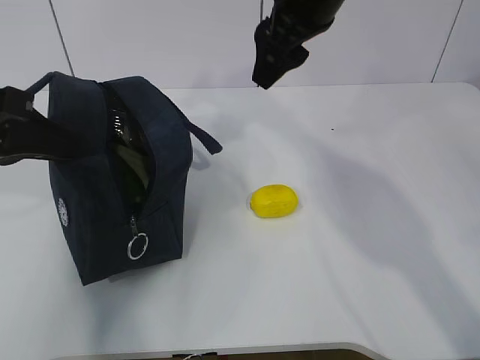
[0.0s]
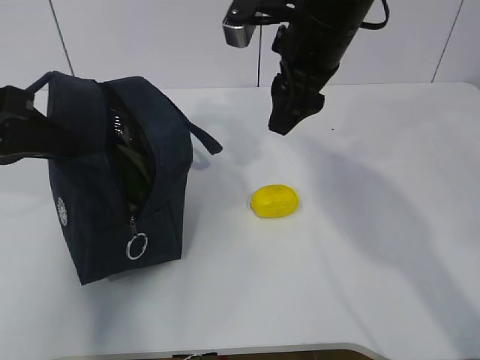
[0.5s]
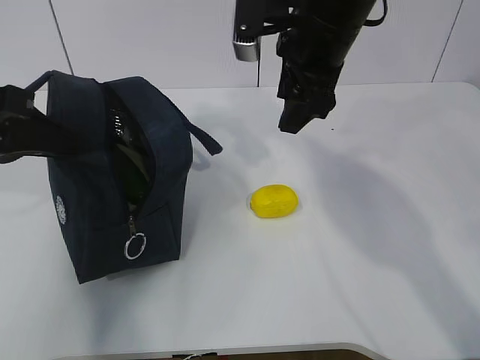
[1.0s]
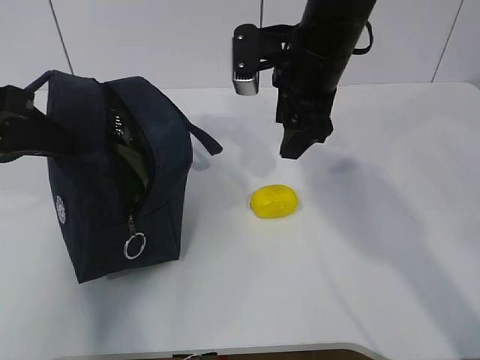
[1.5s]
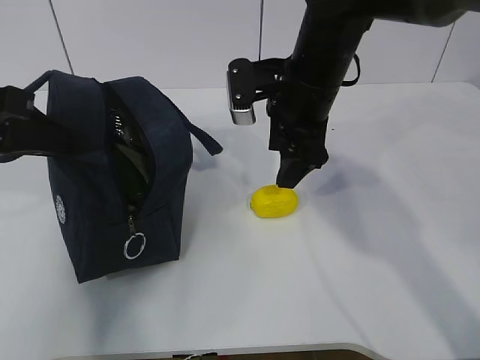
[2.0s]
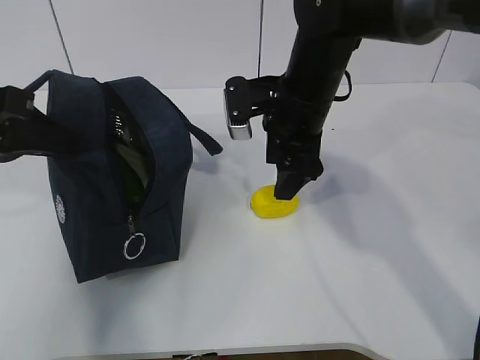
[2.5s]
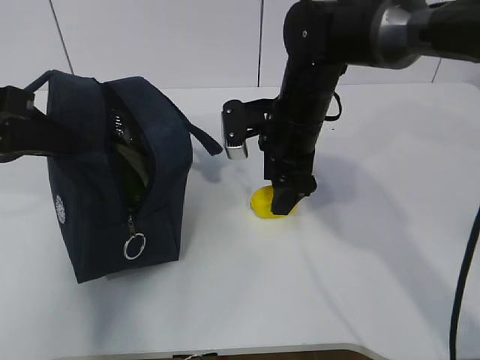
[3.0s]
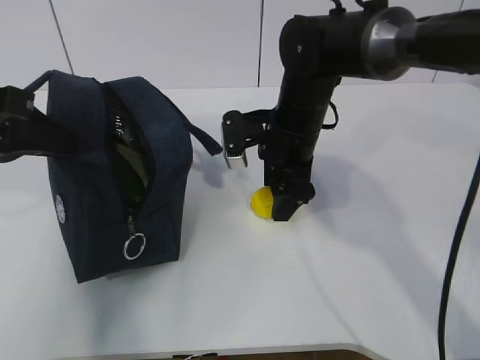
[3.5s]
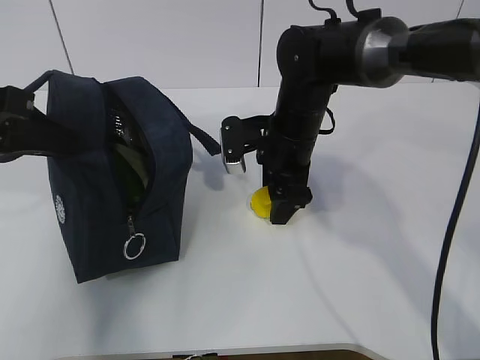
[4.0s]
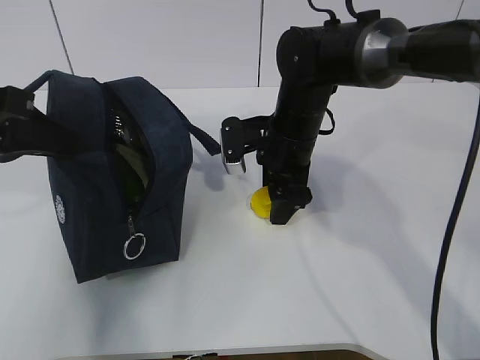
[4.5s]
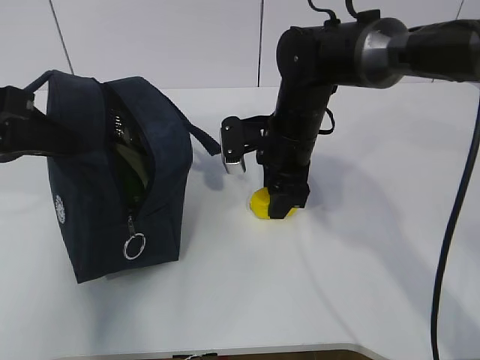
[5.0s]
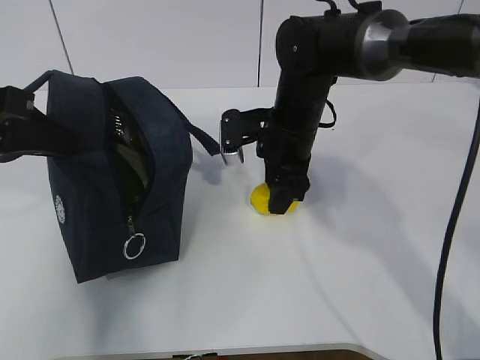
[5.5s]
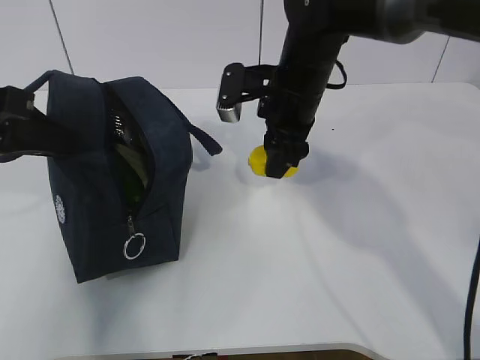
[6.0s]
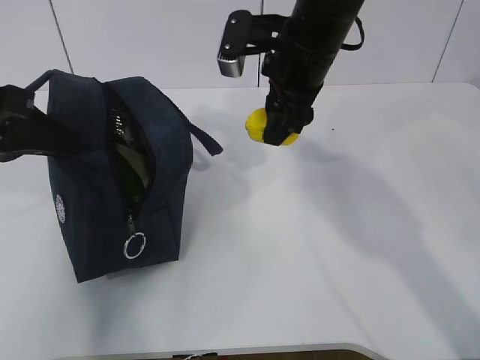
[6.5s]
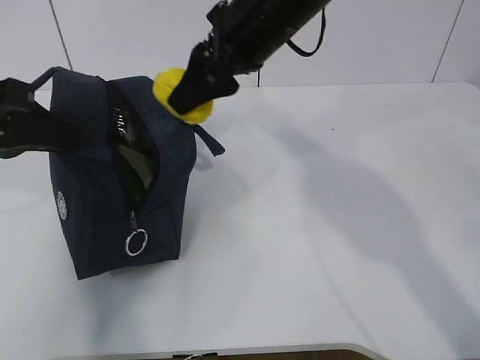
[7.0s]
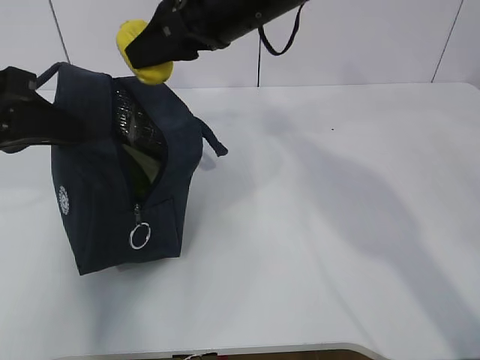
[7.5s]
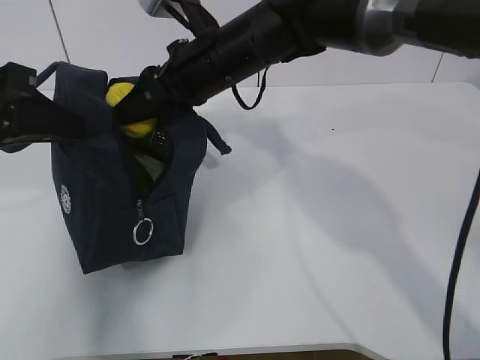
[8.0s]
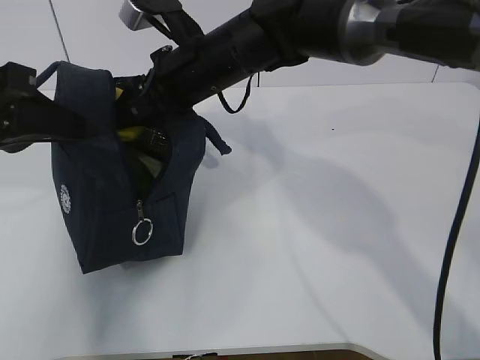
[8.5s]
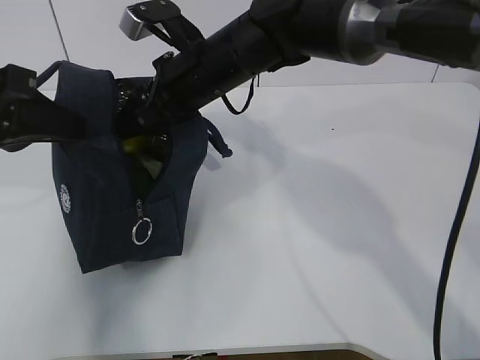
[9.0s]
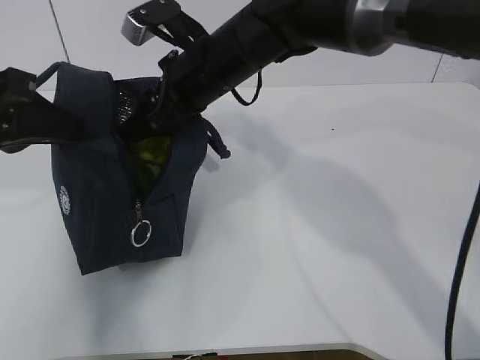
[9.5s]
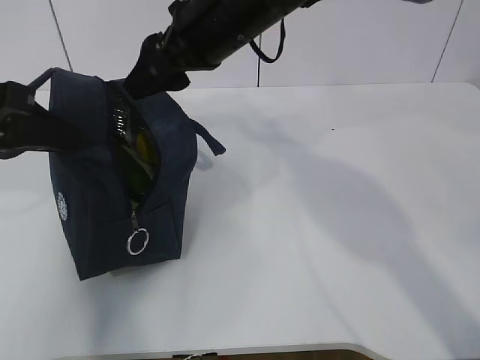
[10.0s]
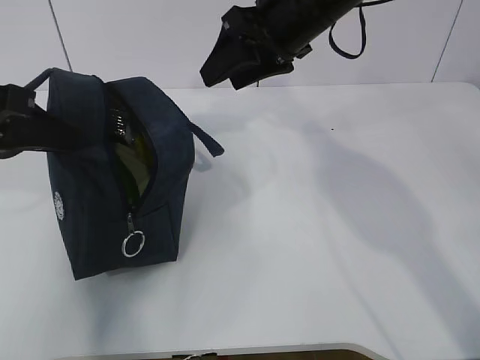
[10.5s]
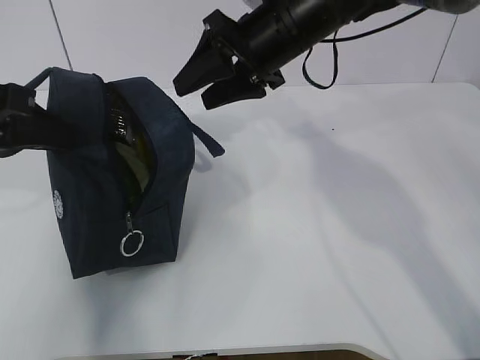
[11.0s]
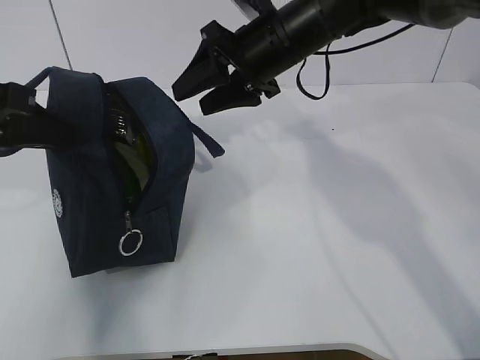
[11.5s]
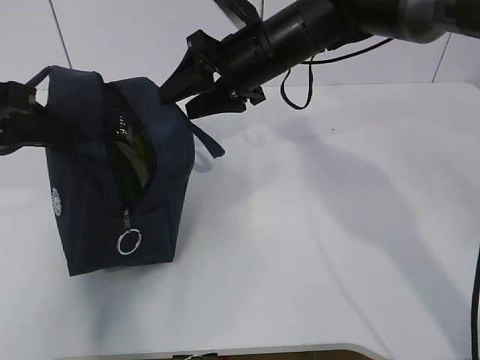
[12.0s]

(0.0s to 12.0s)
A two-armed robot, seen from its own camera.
Step, 3.5s - 6.0s: Grab the lunch bag with your right hand.
0.0s - 2.0s: The right gripper heads downward, covering some 10 cm.
2.0s - 4.0s: The right gripper travels downward by about 10 cm.
4.0s - 6.0s: The right gripper heads upward, covering about 5 cm.
6.0s - 8.0s: The right gripper travels to the left by roughly 10 cm.
8.0s - 10.0s: The right gripper changes place by about 5 cm.
10.0s - 12.0s: The right gripper moves about 10 cm.

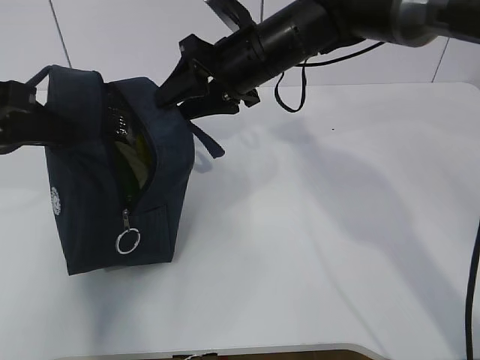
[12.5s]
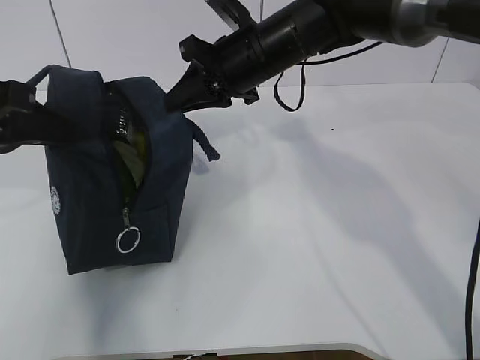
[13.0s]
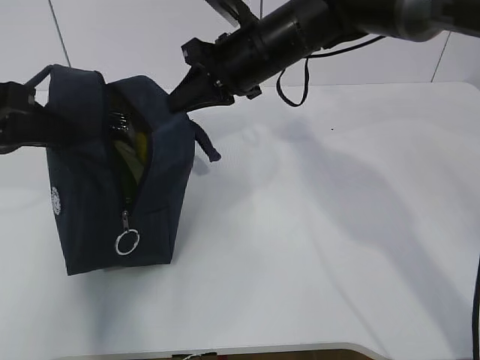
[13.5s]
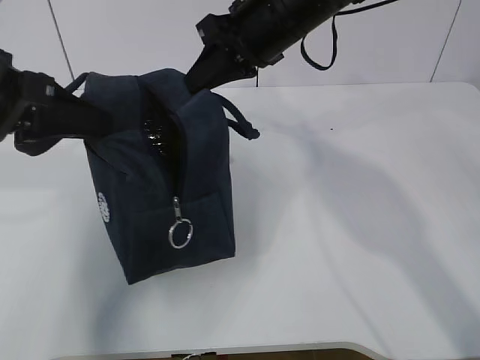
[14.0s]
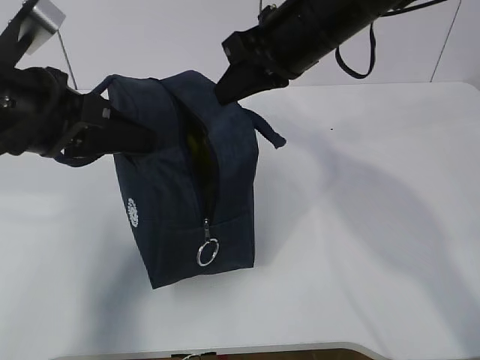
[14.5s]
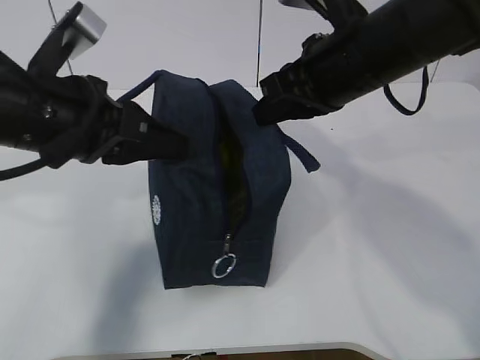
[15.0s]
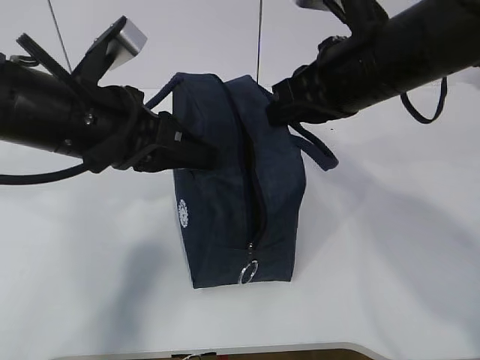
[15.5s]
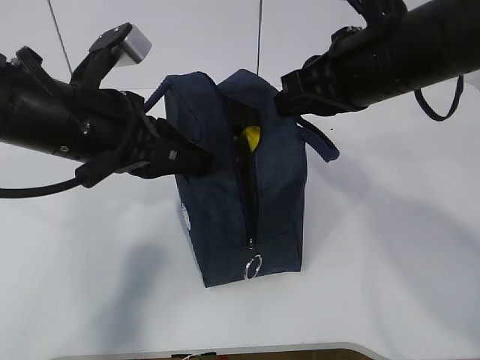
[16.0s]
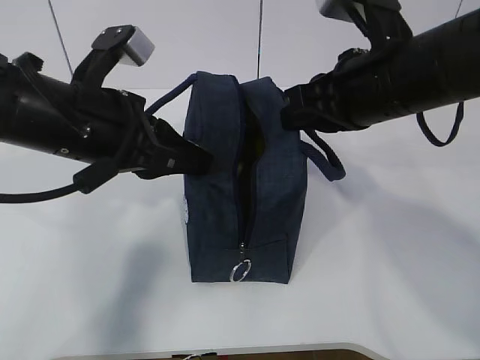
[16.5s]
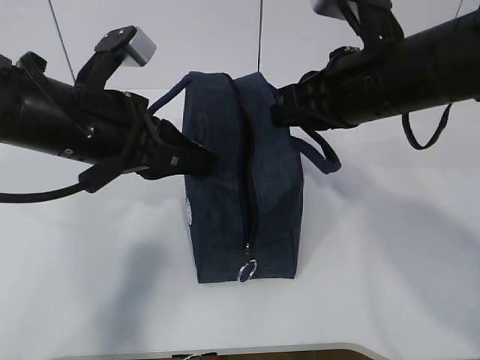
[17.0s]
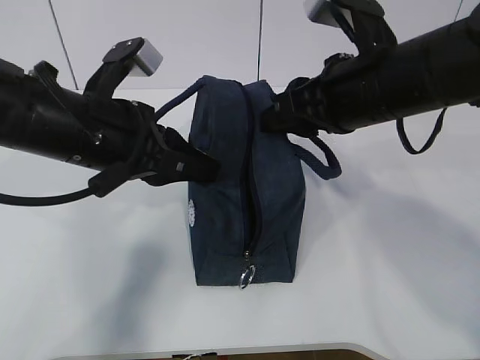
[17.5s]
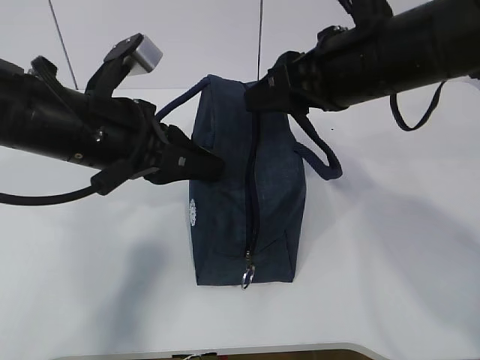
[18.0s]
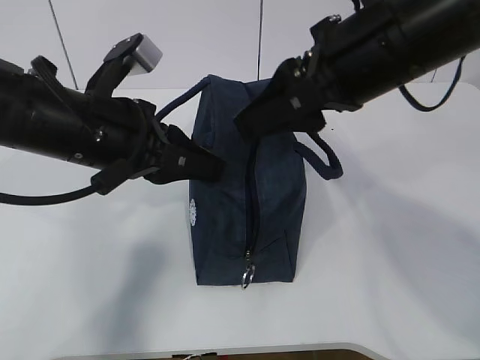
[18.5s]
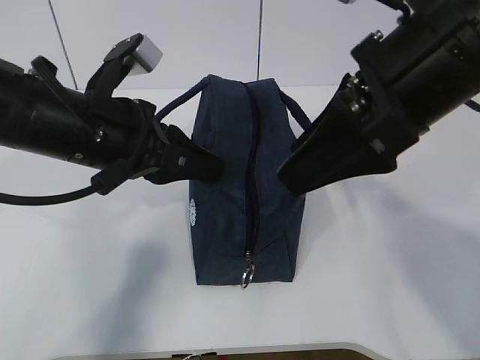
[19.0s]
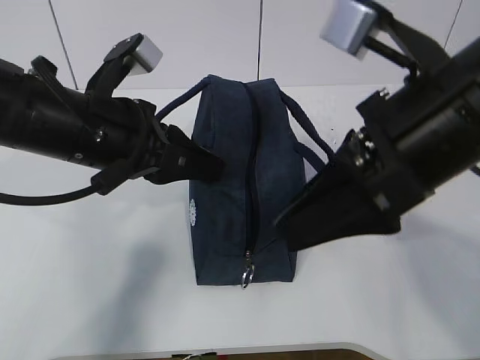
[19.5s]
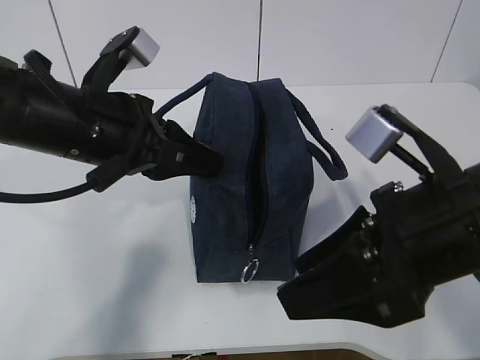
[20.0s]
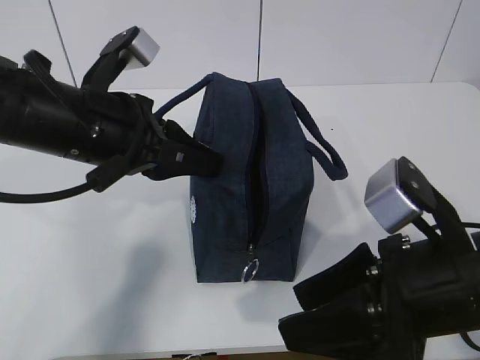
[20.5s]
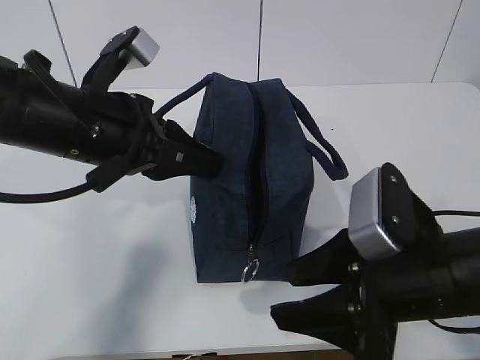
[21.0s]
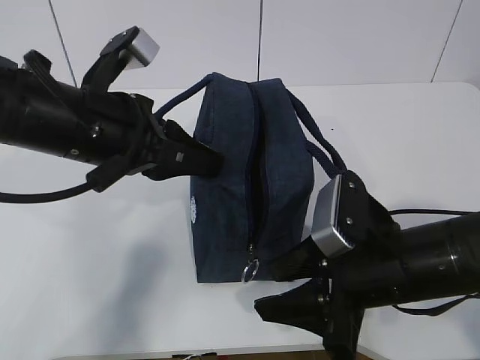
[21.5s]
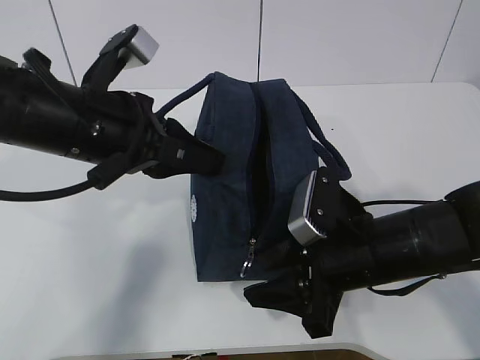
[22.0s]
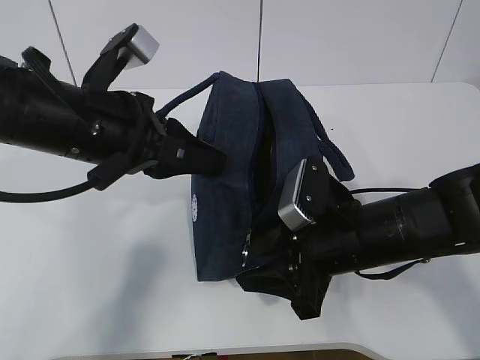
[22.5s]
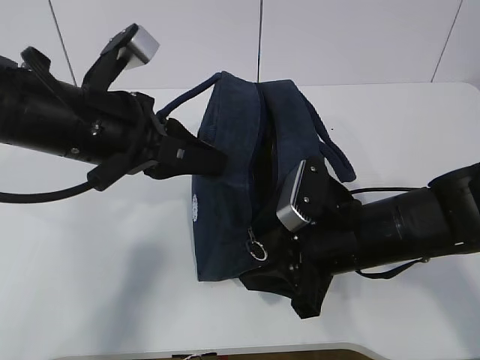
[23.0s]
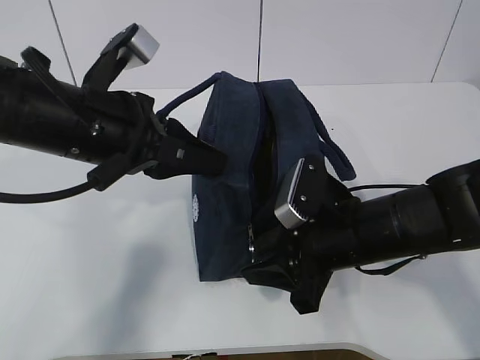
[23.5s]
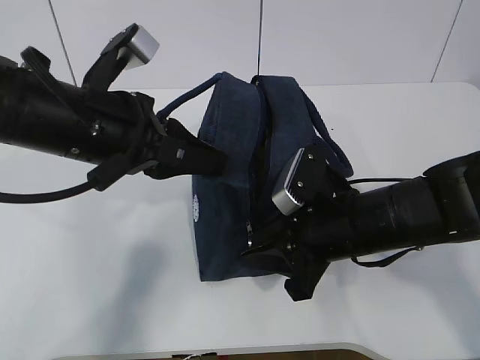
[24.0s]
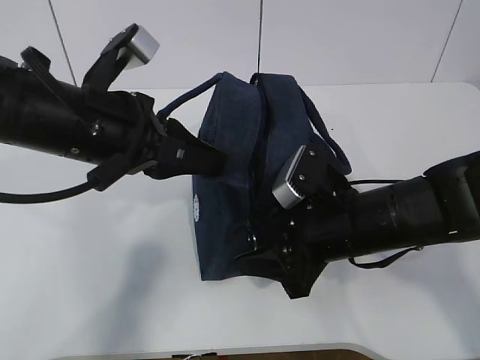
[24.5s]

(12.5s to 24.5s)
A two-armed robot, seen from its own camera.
Step, 12.5s - 23.5s: Grab the lunch bag with your left hand.
12.5s - 14.5s: The right gripper heads backward and upward, covering about 5 cm, and closes up; the left gripper heads to the right, covering roughly 5 cm.
14.5s - 16.5s: The right gripper travels backward and to the right by about 10 cm. The left gripper shifts about 5 cm to the right.
16.5s - 18.5s: The right gripper opens.
18.5s - 20.5s: The right gripper is displaced backward and downward by roughly 15 cm.
20.5s - 22.5s: The right gripper goes approximately 10 cm forward and downward.
22.5s - 24.5s: The grippers make only small movements.

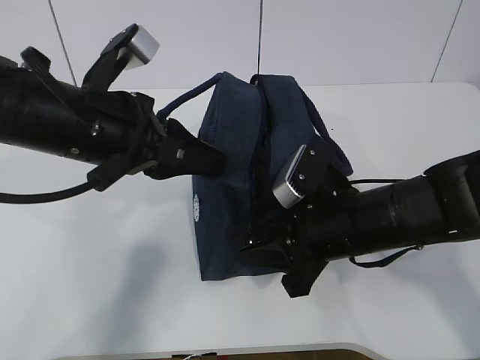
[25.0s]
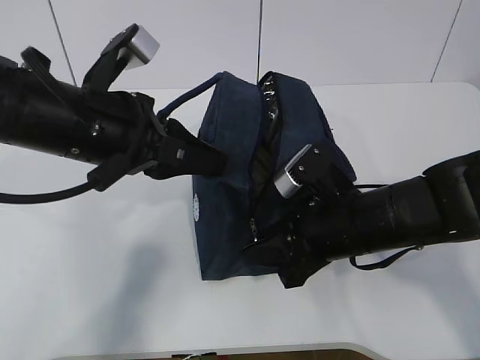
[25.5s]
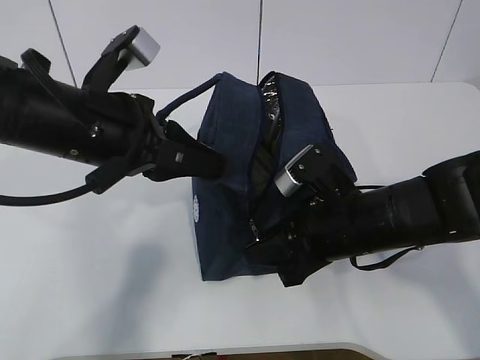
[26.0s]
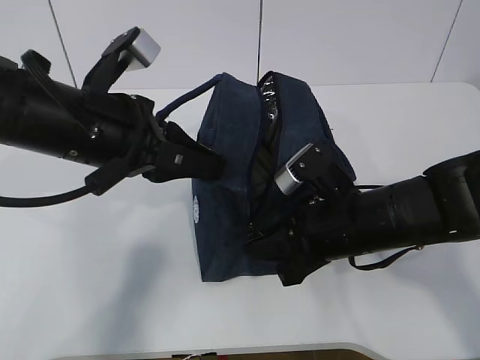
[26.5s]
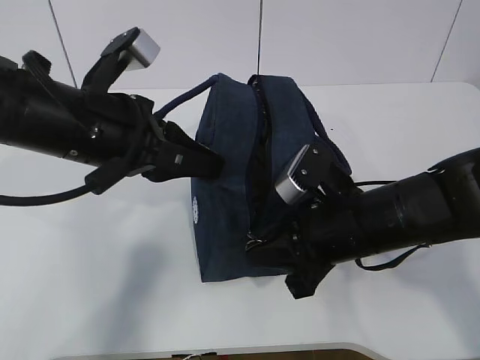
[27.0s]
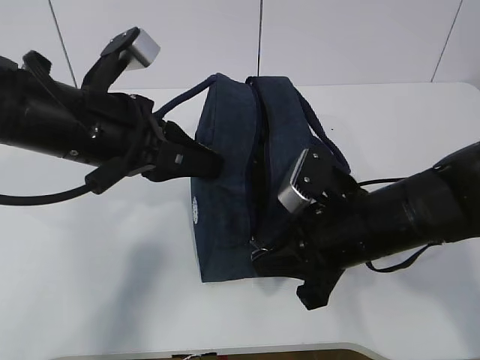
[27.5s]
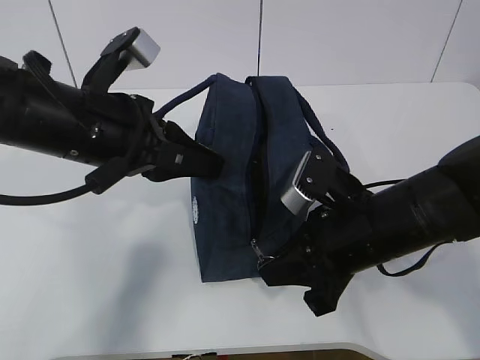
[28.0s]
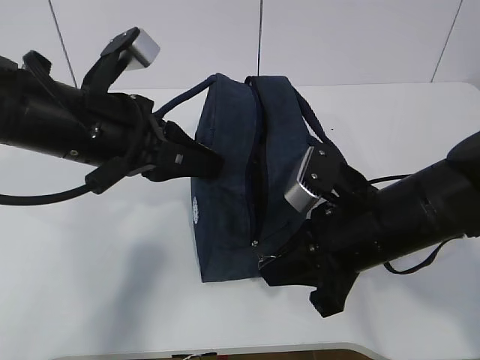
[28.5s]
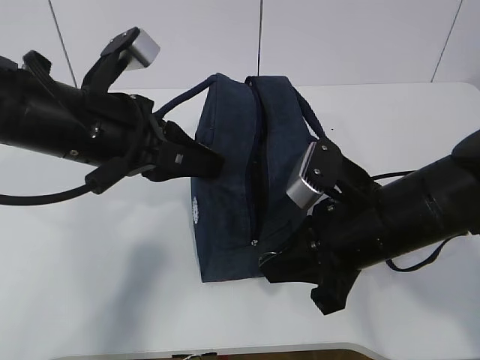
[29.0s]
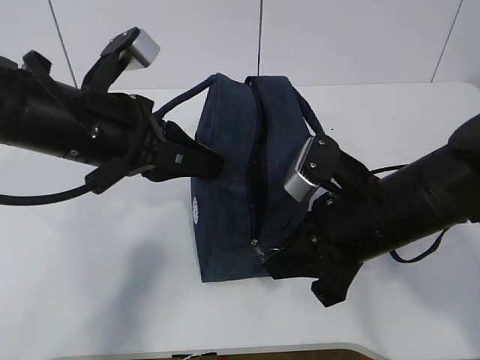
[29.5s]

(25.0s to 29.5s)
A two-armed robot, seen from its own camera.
25.0s - 27.0s: The right gripper closes its fingers.
27.0s - 29.5s: The grippers move only a little.
